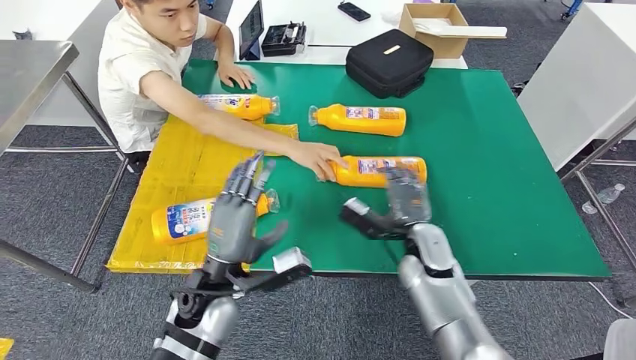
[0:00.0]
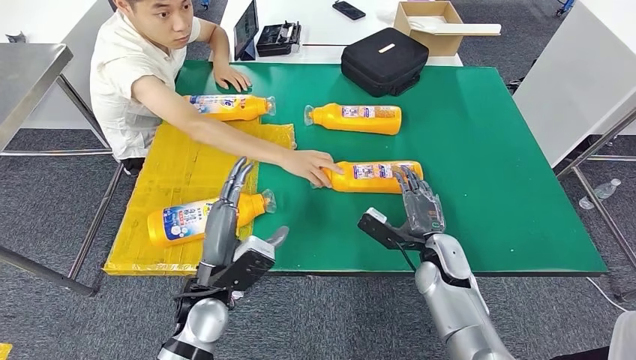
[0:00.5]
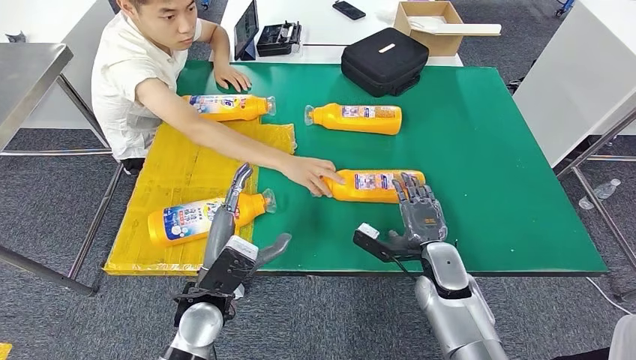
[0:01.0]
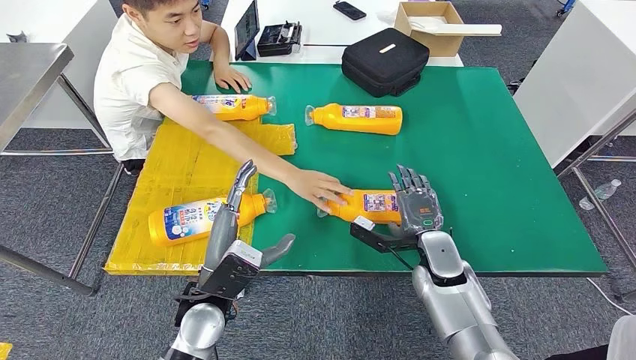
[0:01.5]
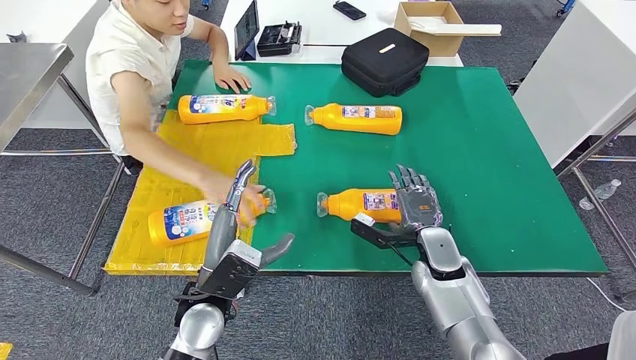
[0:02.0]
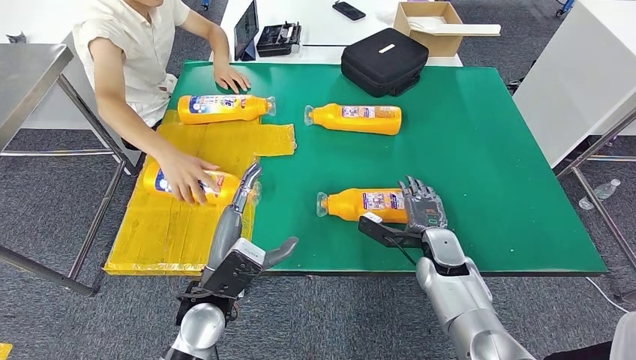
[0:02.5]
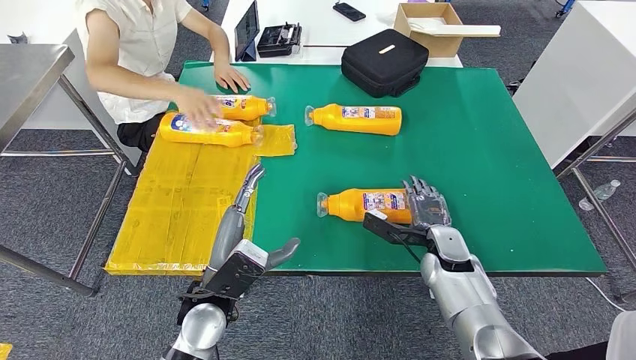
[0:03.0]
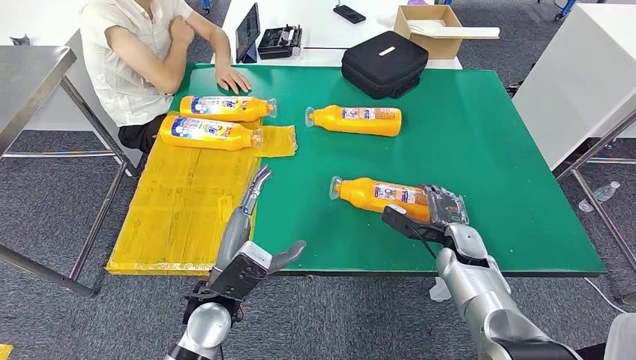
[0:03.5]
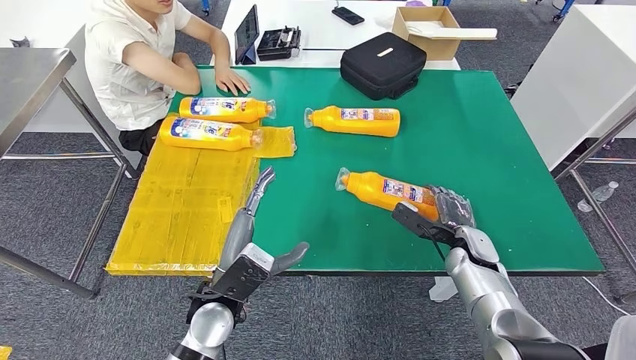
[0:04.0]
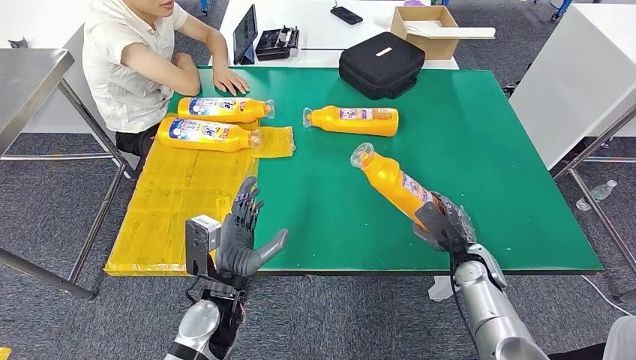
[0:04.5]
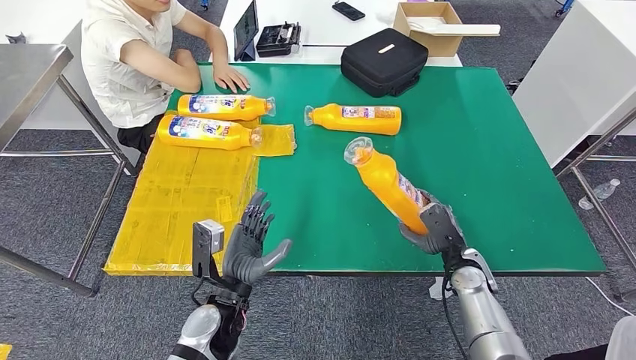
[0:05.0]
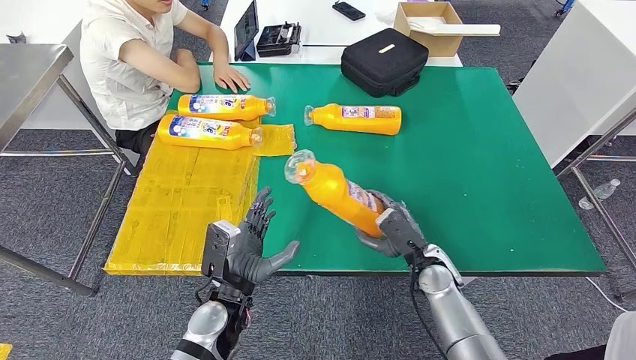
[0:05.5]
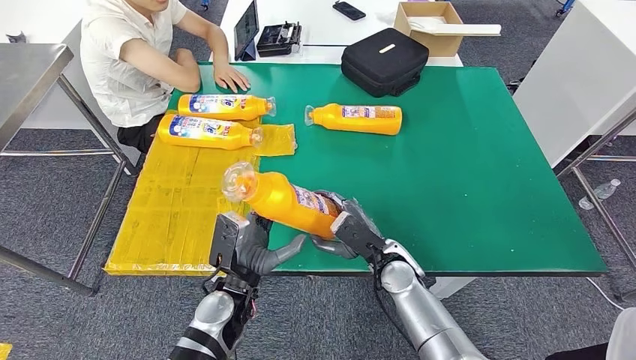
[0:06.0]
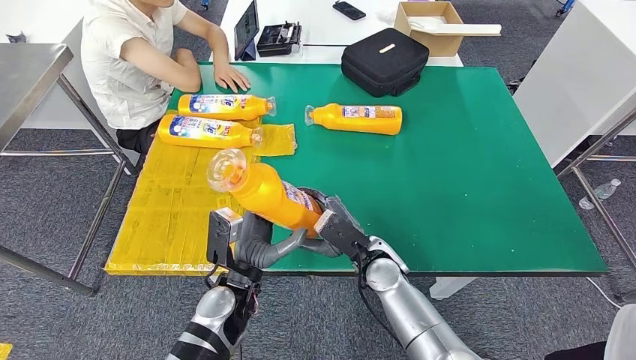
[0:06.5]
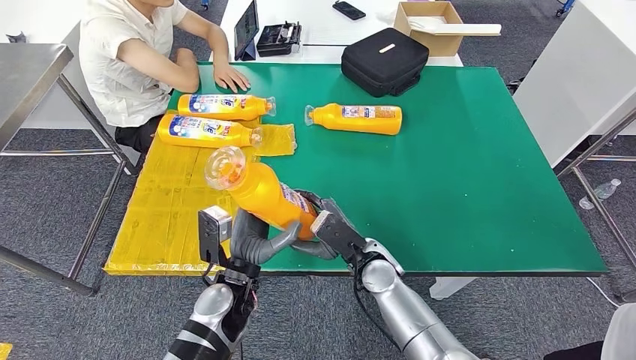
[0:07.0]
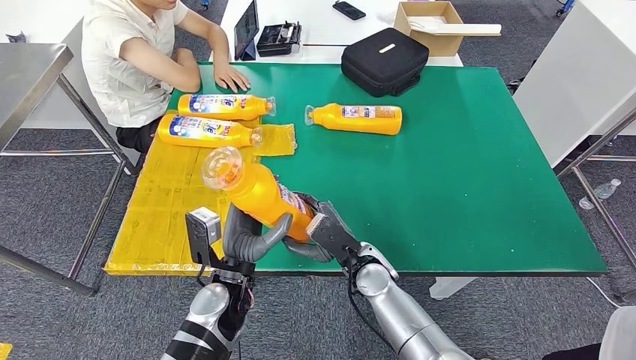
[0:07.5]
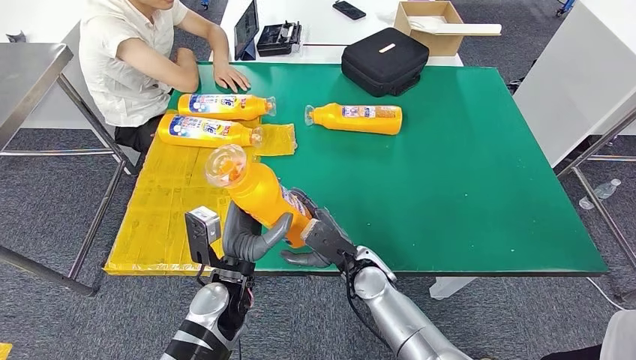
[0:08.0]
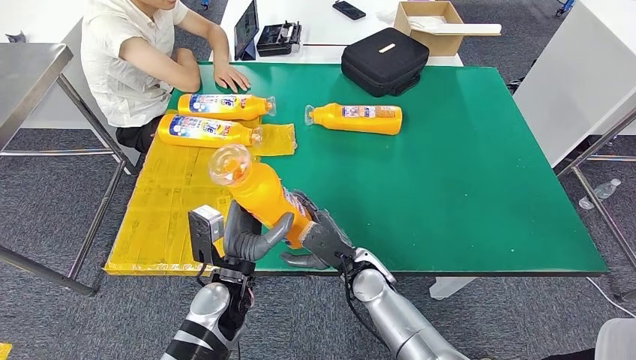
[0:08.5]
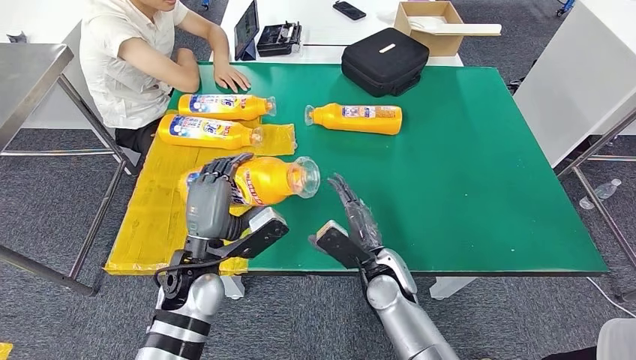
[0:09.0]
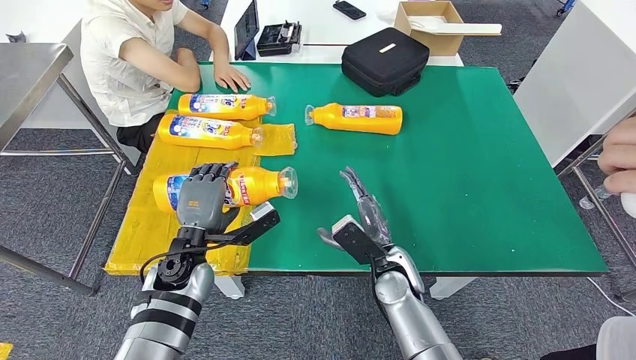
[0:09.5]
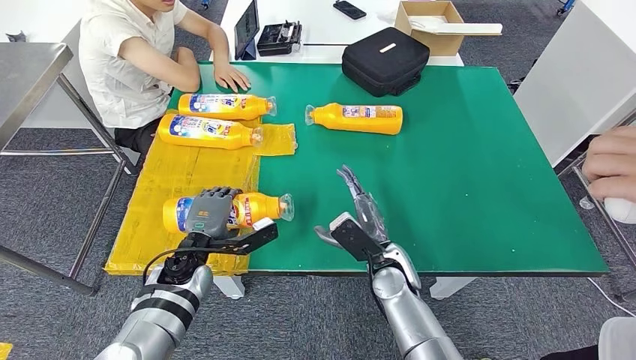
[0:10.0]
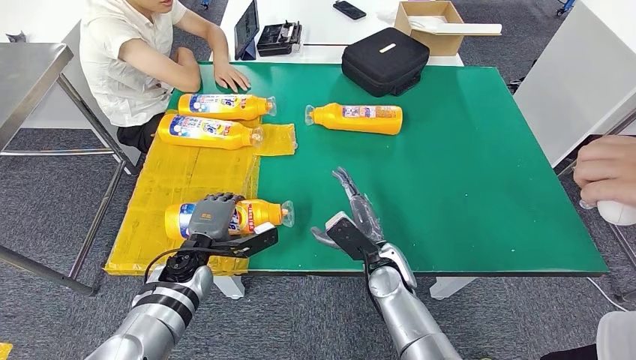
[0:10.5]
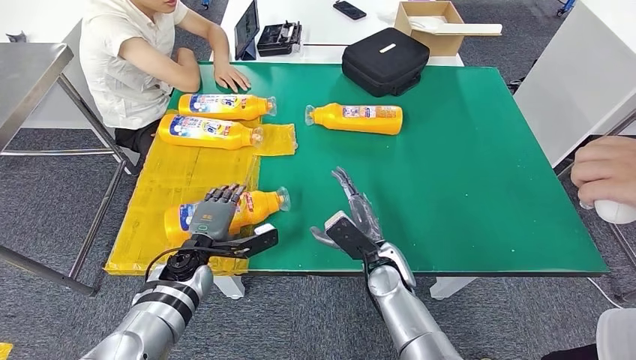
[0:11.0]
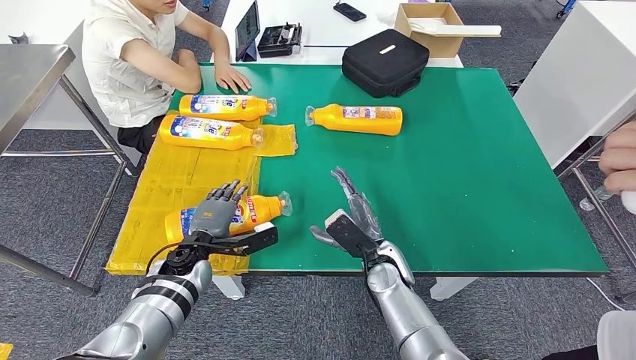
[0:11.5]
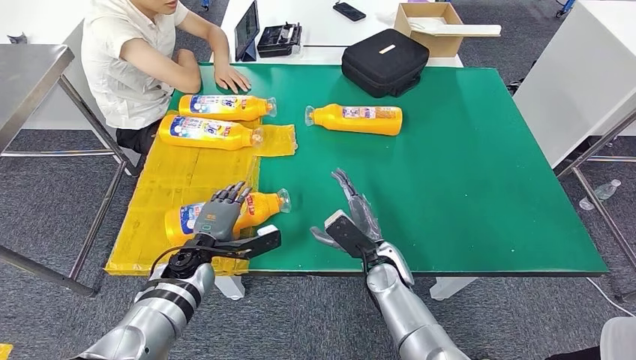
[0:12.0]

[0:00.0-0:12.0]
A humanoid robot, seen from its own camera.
Step, 0:02.5 to 0:05.5: Pick up the bottle from the table.
Step, 0:06.0 to 0:11.5: Flip the bottle to face forward.
0:06.0 to 0:08.0: The right hand moves to the left, some 5 cm.
0:08.0 to 0:10.0: The left hand shifts roughly 10 cm to the left and forward.
0:10.0 to 0:12.0: The hands make only small movements.

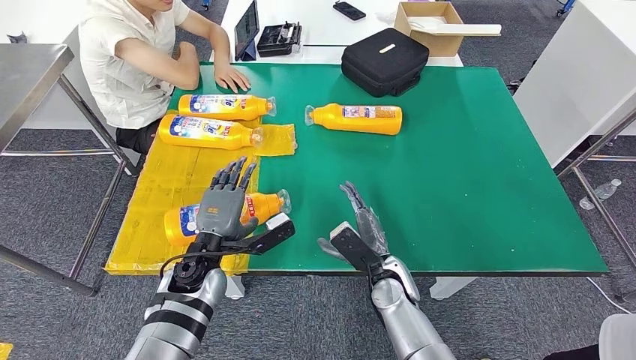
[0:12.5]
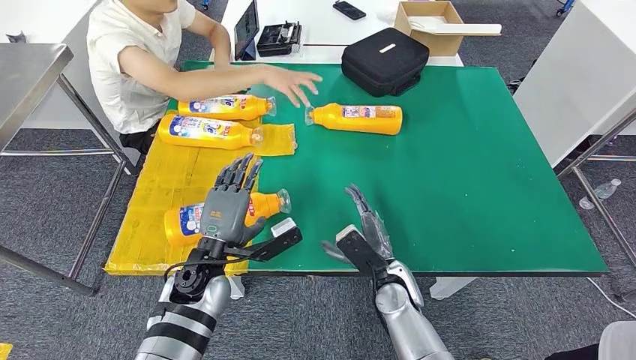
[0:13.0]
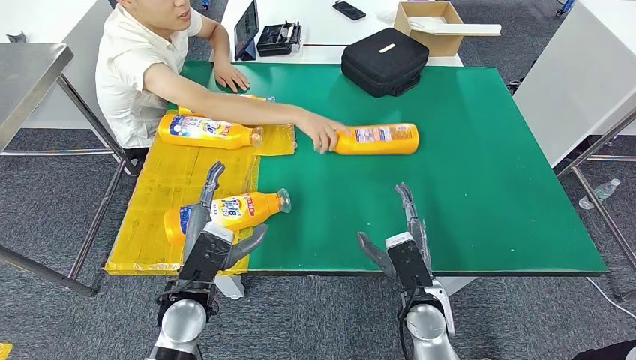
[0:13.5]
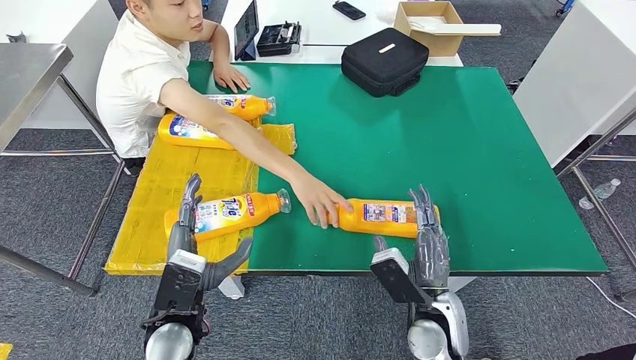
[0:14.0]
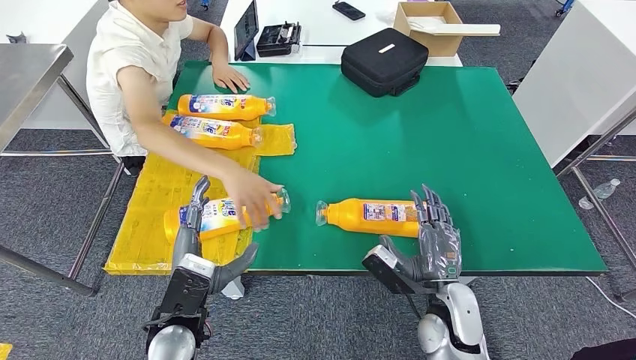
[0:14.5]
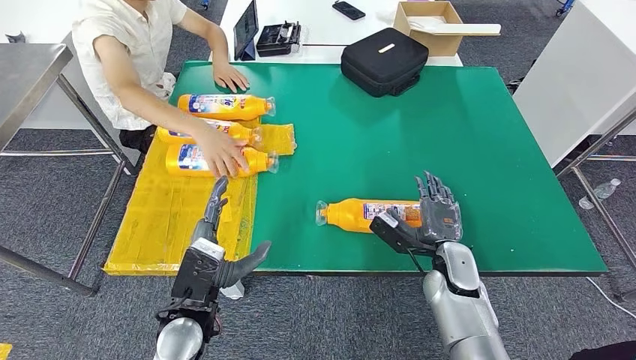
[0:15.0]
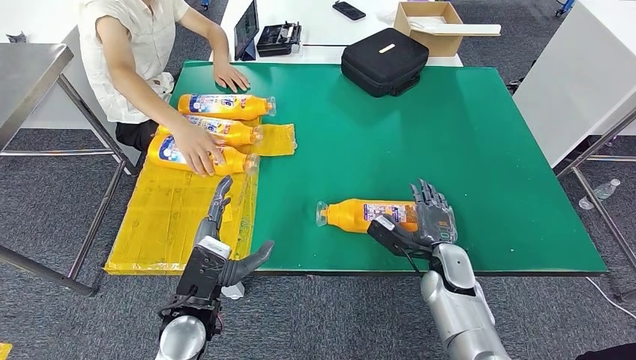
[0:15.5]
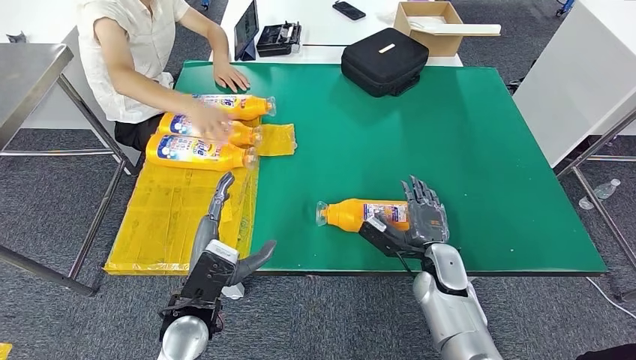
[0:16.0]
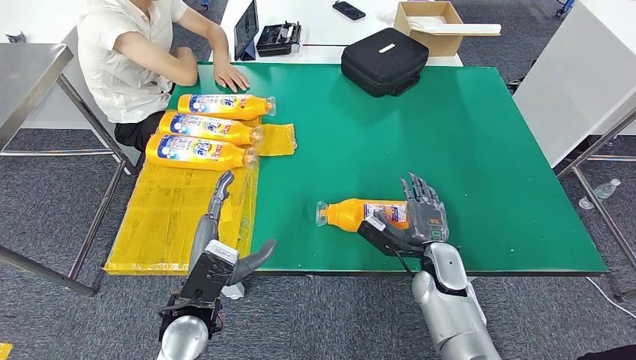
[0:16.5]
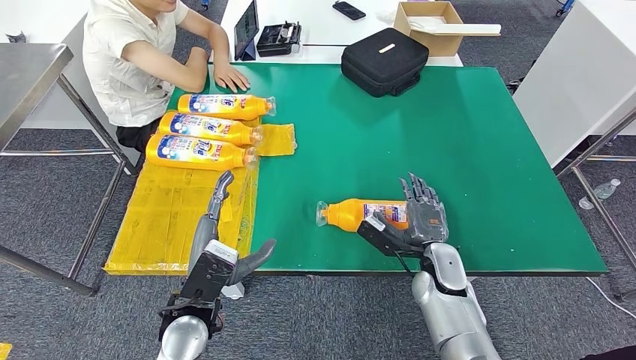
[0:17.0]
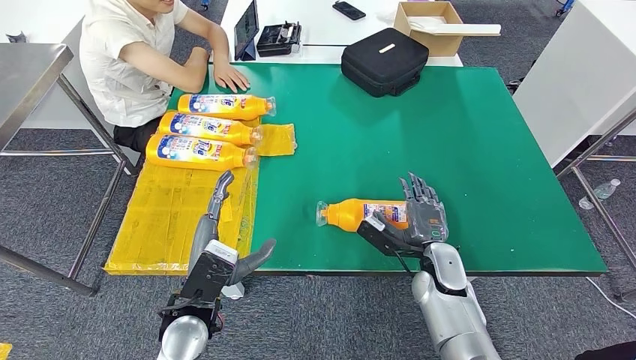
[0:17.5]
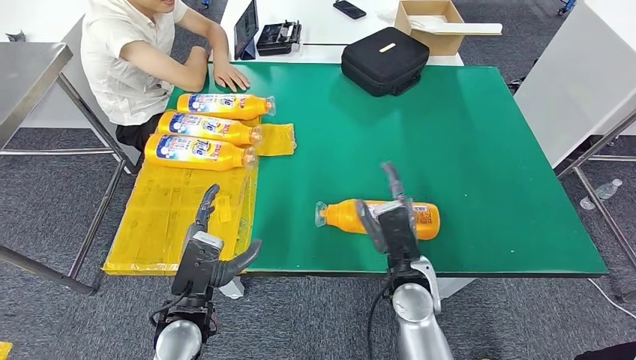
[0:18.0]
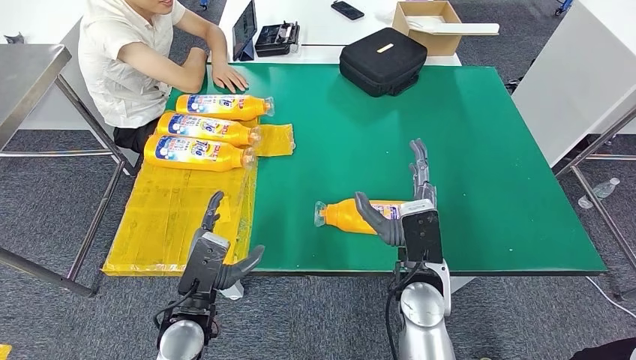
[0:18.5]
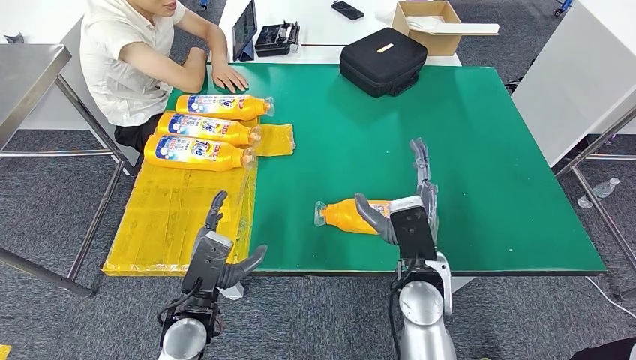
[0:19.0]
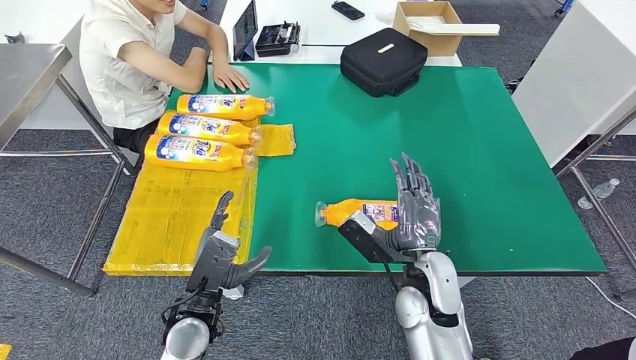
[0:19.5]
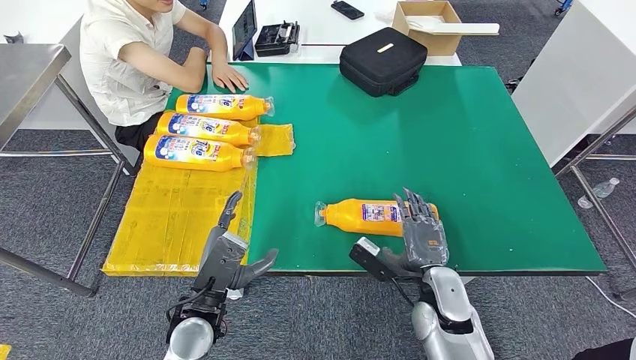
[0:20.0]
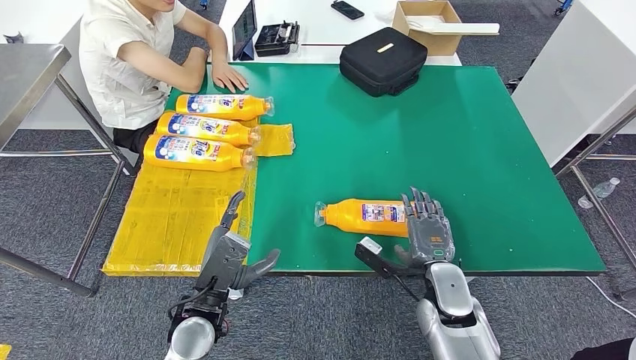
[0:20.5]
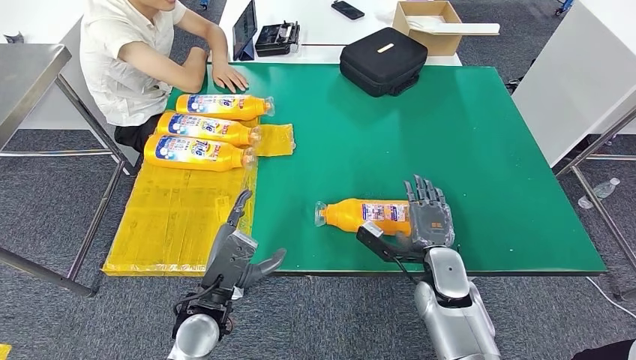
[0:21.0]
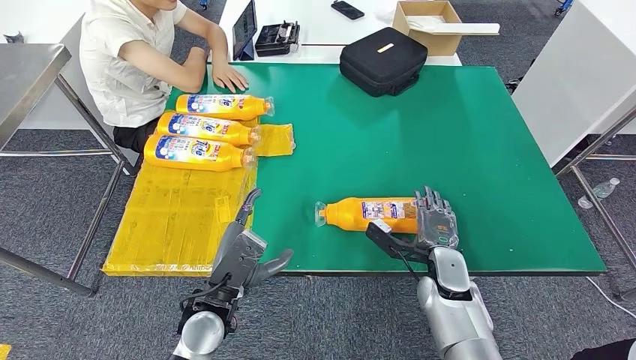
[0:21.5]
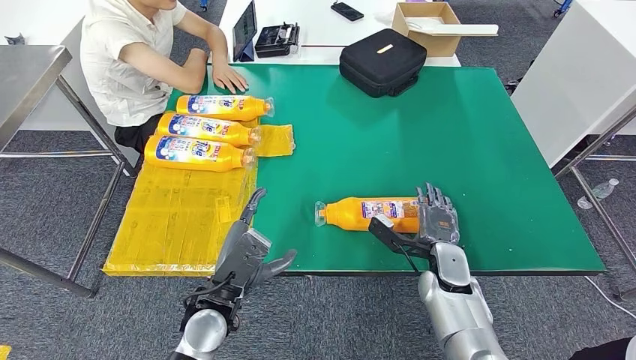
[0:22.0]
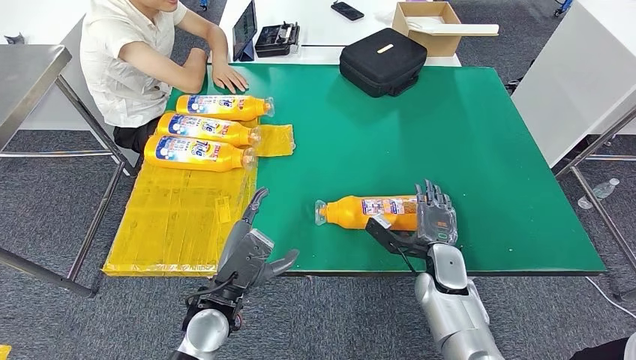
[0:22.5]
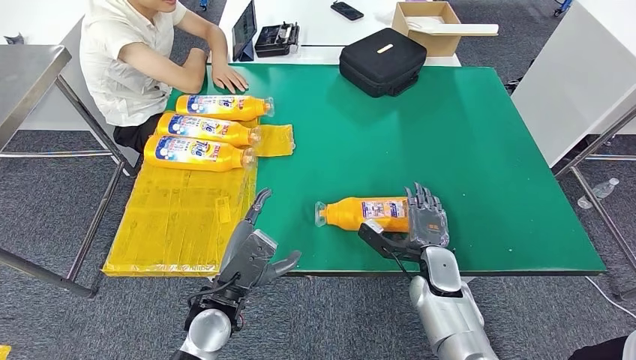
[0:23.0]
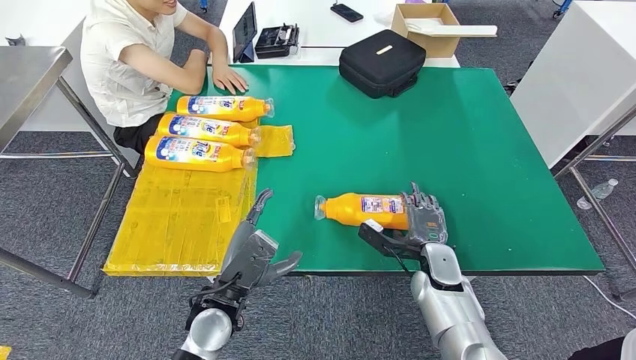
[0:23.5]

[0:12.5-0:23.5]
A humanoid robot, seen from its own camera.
0:14.5 to 0:16.0: The right hand travels forward by about 10 cm.
0:16.0 to 0:18.0: The right hand moves to the left and upward, approximately 10 cm.
0:18.0 to 0:20.0: The right hand goes about 5 cm to the right.
0:20.0 to 0:21.5: The right hand goes approximately 5 cm forward.
0:21.5 to 0:23.5: The hands move only a little.
